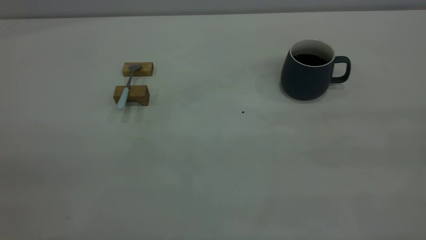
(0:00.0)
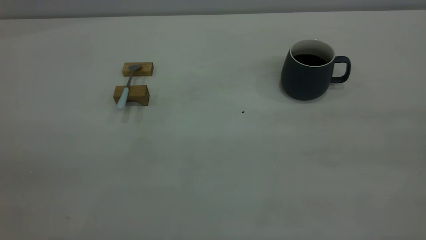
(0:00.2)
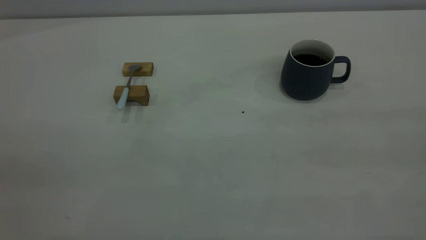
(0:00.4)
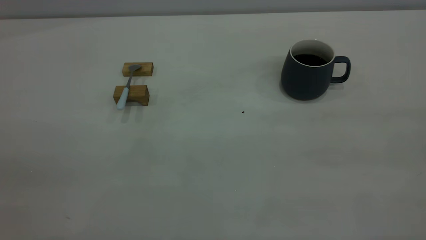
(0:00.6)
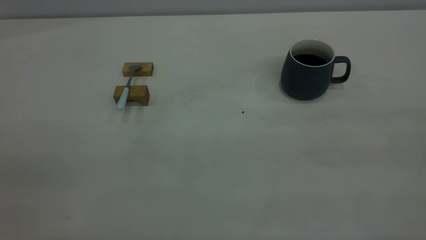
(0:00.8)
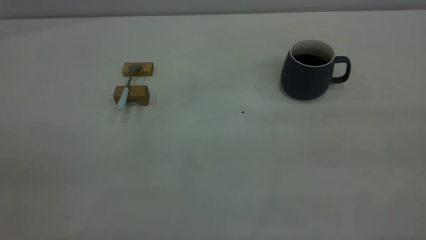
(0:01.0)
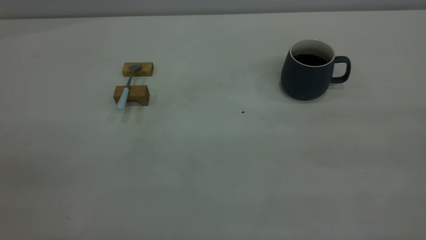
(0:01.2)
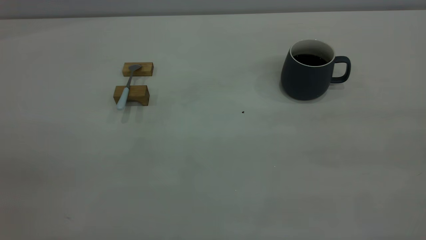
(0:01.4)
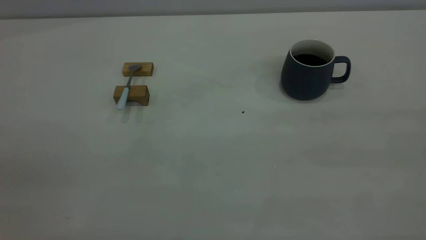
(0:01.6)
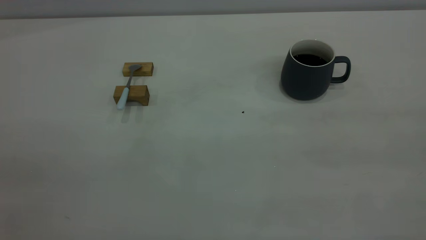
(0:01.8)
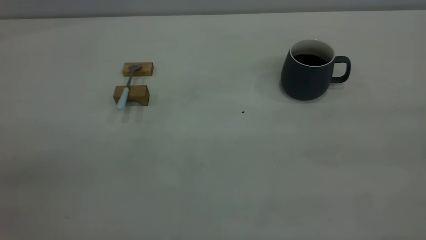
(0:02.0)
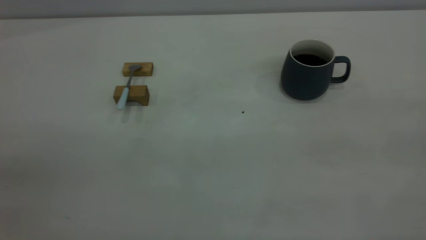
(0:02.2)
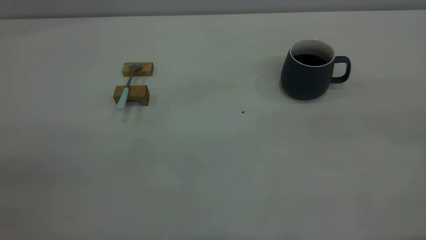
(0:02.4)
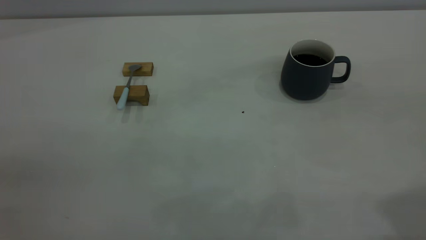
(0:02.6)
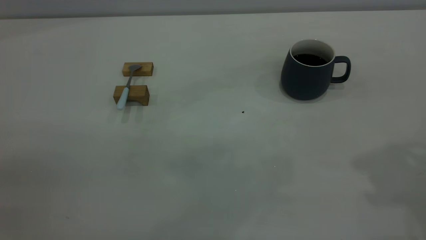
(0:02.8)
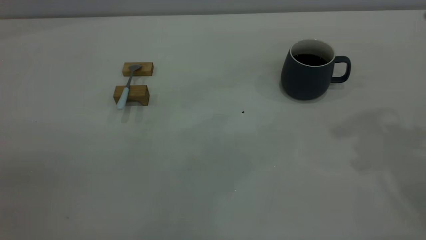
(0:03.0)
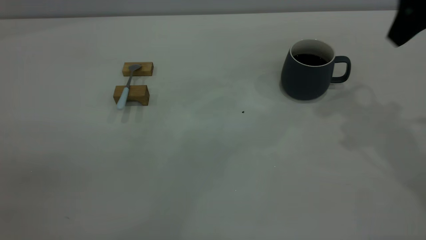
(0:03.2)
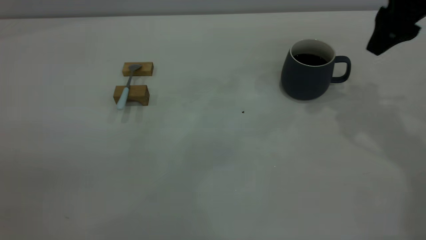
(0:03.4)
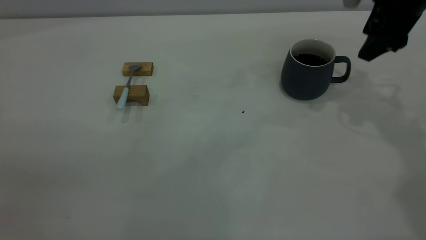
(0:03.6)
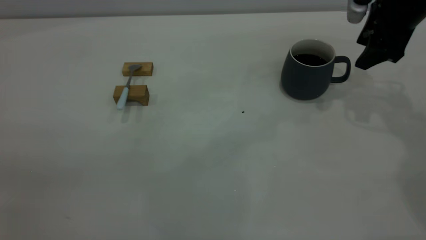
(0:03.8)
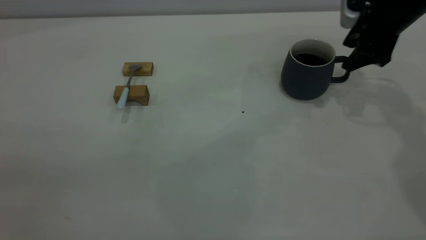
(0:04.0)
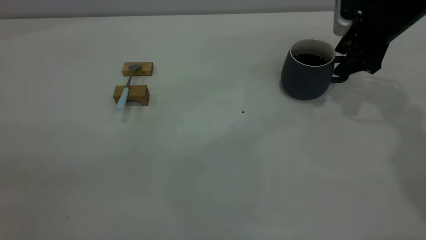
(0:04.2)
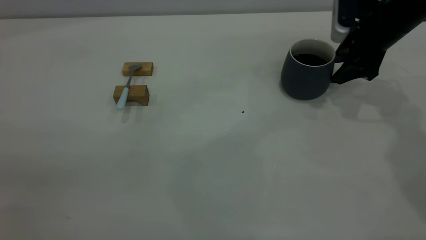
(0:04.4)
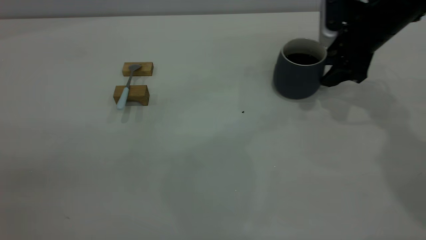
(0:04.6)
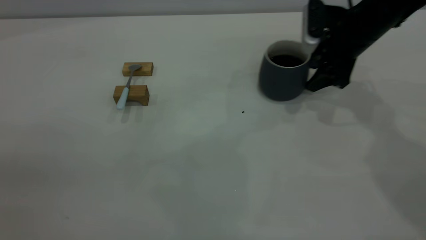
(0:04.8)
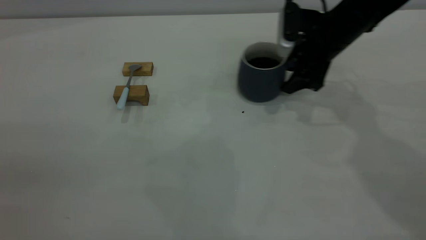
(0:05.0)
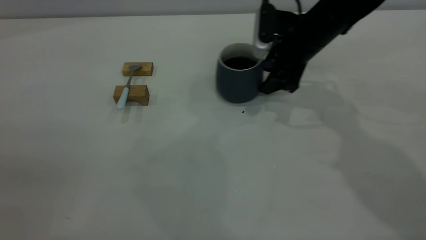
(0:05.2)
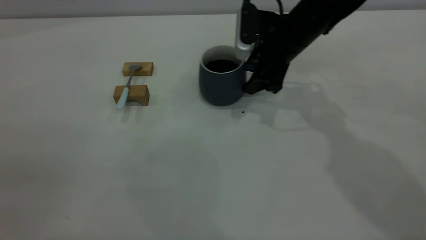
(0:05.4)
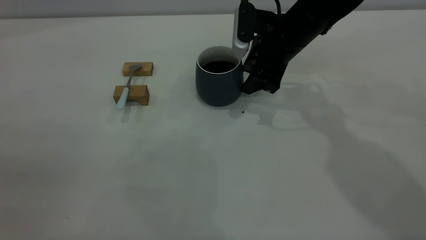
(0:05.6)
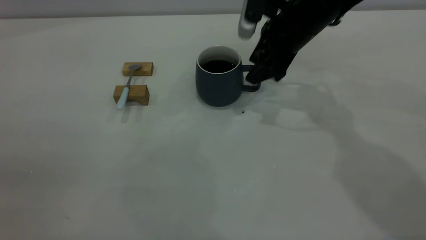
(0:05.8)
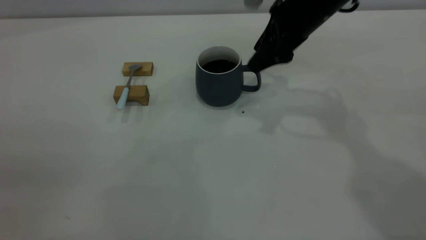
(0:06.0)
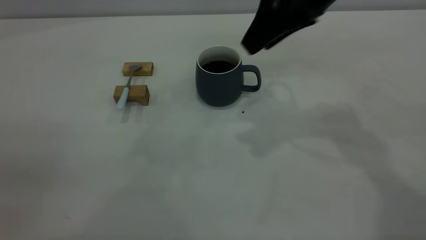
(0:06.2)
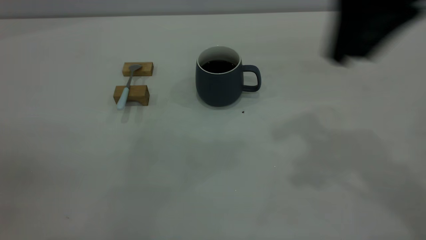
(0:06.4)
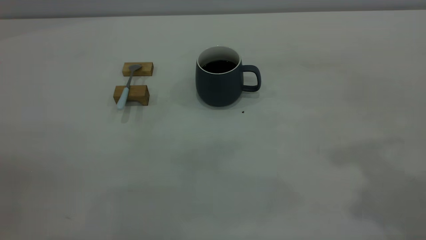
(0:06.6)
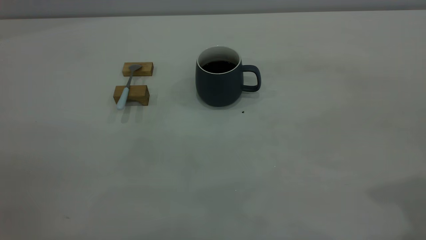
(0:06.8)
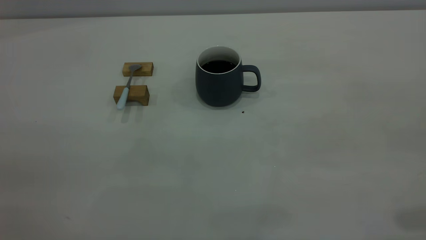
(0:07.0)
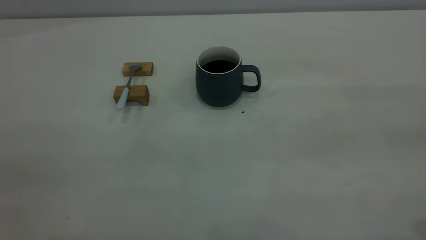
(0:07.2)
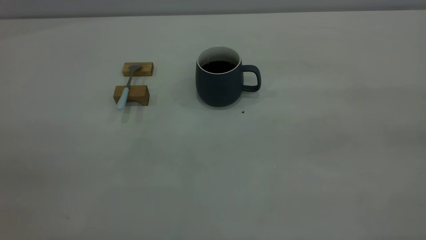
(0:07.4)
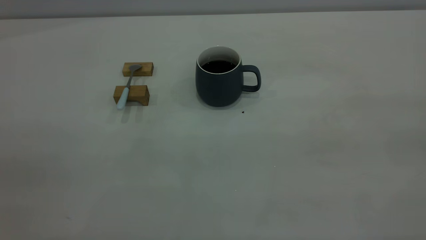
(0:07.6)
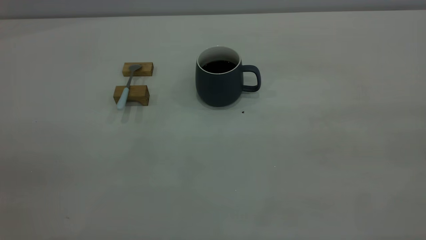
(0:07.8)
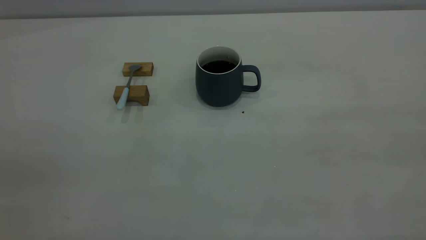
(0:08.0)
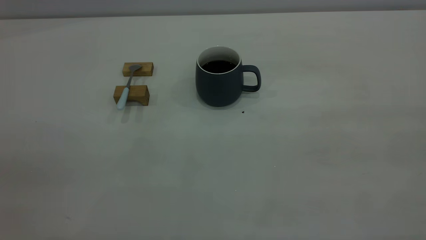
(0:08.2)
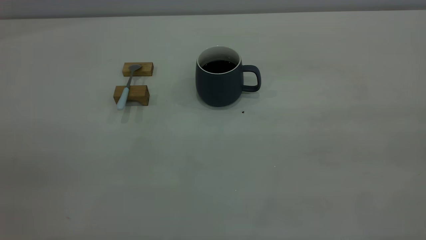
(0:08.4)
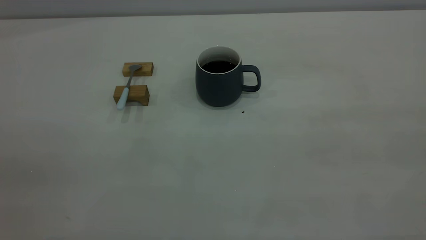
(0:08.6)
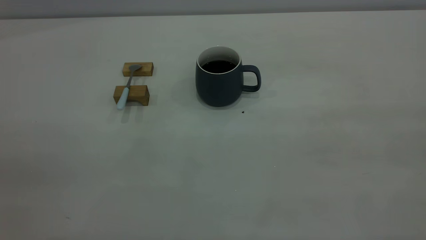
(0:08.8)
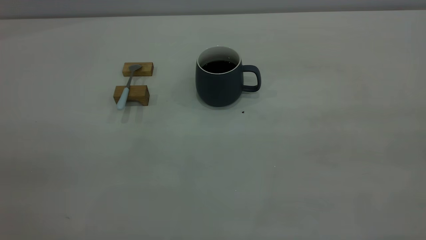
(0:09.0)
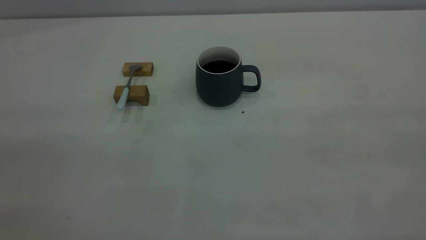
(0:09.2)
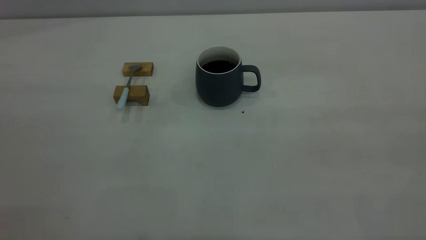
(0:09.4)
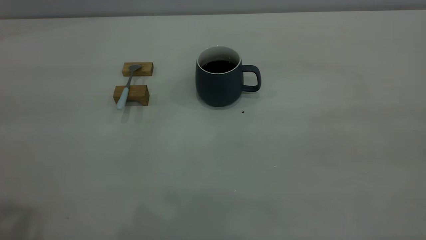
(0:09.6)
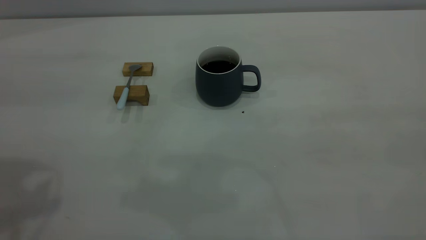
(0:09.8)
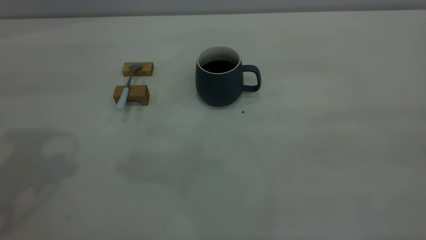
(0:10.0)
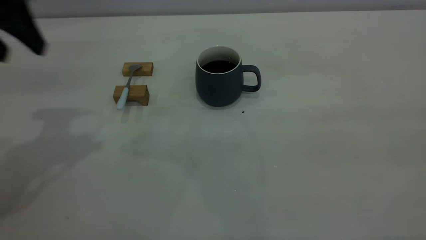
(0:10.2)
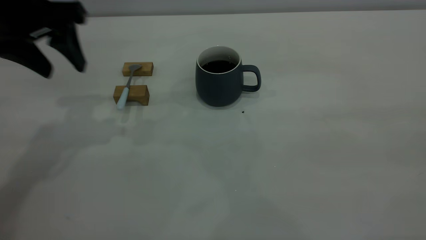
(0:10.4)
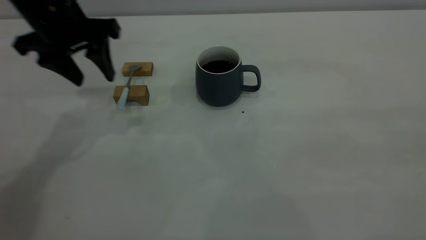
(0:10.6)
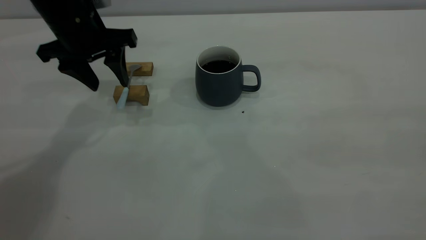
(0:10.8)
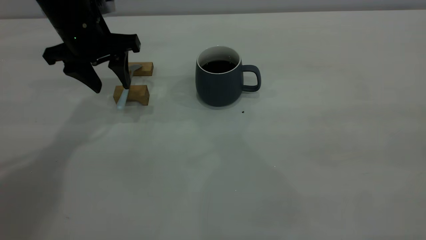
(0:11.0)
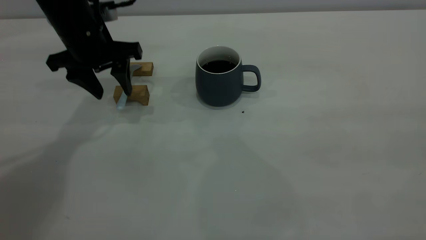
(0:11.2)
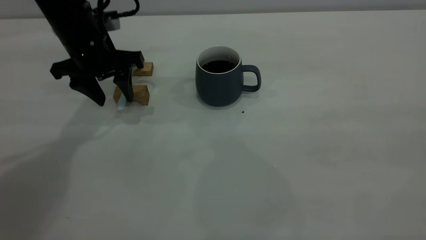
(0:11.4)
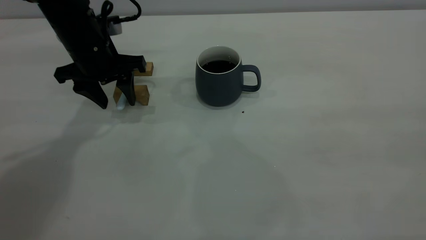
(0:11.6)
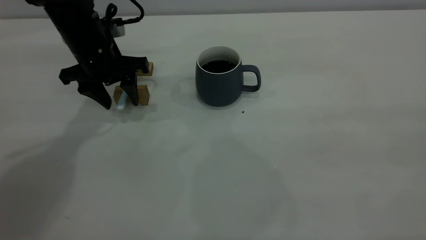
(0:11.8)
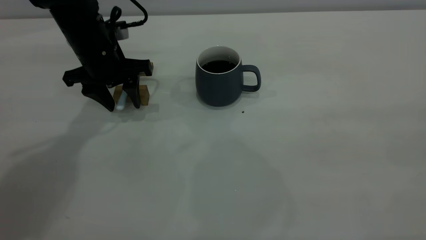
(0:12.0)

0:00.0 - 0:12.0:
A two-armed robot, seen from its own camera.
Step, 0:00.0 - 0:06.2: Move the cup with coffee to the center of view.
0:00.0 - 0:01.6: The two grippers keep their place.
0:03.0 - 0:04.4: The right gripper shifts about 25 cm downward and forward.
0:04.4 - 0:06.0: The right gripper heads to the left and upward, covering approximately 15 cm.
0:06.0 - 0:07.6: The right gripper shifts about 40 cm backward, upward and to the right.
0:09.0 - 0:10.4: The left gripper shifts approximately 35 cm forward, and opens.
0:10.4 - 0:12.0: The left gripper moves downward and forward, about 15 cm.

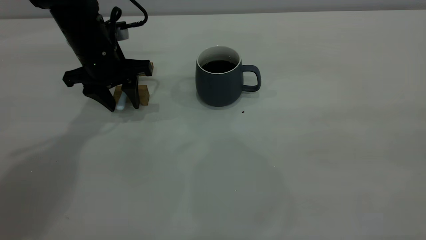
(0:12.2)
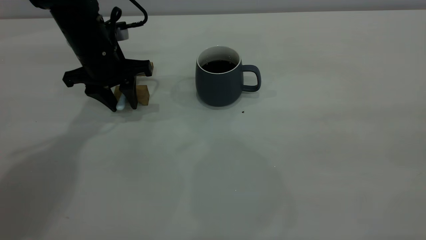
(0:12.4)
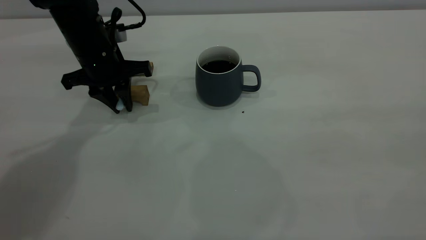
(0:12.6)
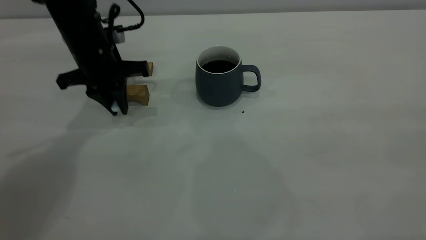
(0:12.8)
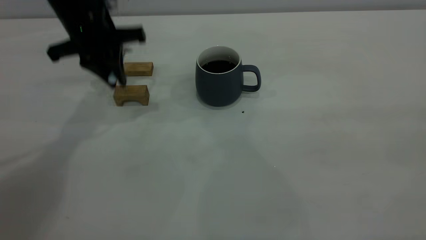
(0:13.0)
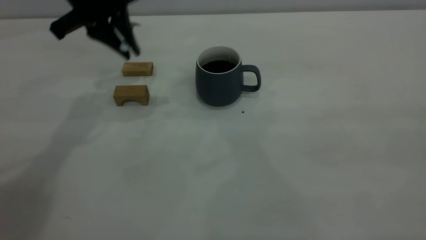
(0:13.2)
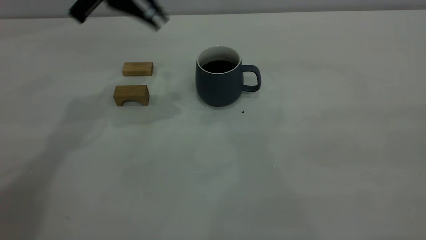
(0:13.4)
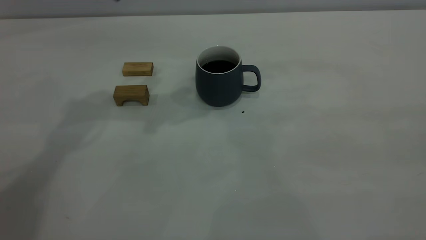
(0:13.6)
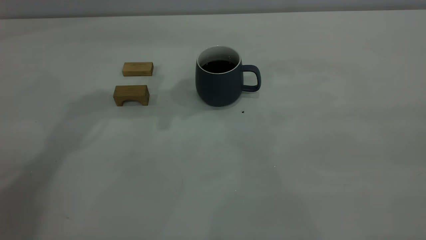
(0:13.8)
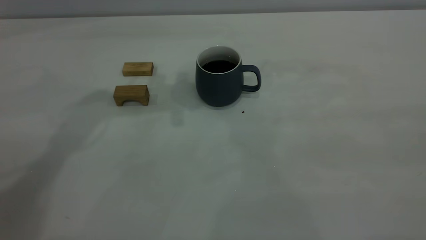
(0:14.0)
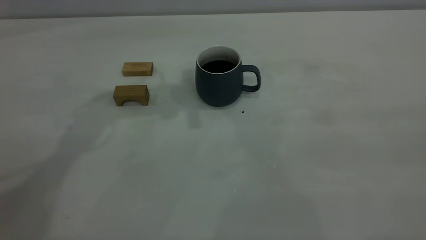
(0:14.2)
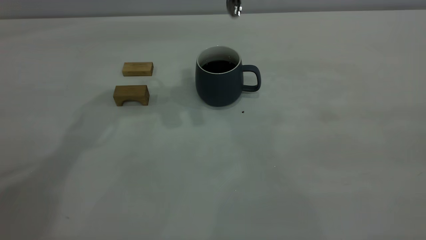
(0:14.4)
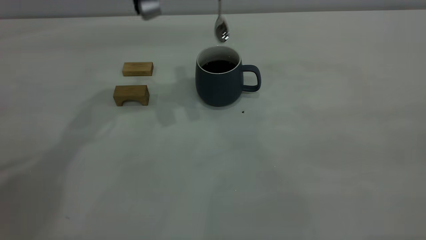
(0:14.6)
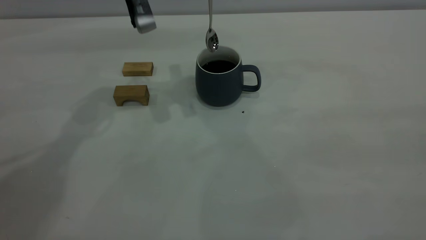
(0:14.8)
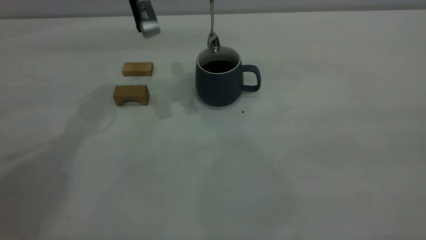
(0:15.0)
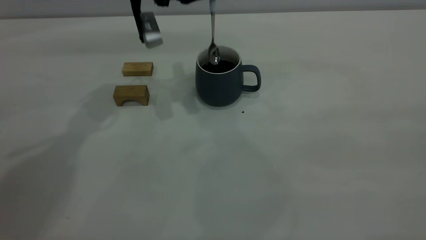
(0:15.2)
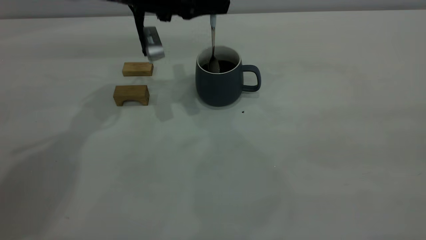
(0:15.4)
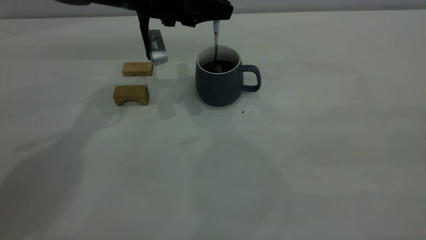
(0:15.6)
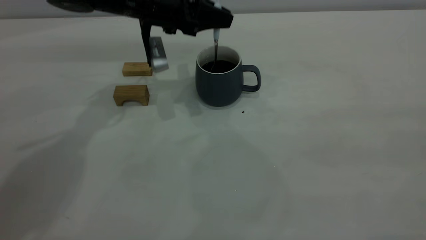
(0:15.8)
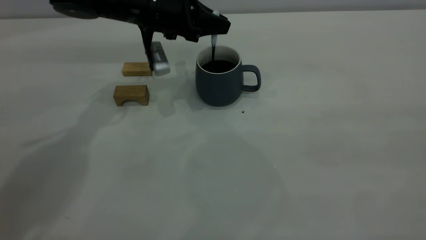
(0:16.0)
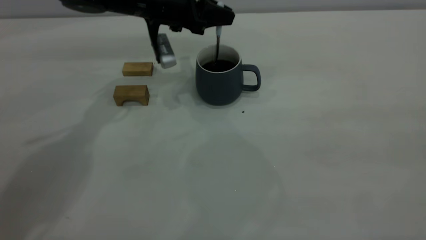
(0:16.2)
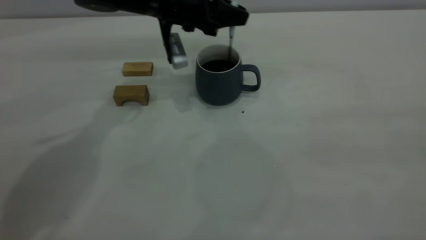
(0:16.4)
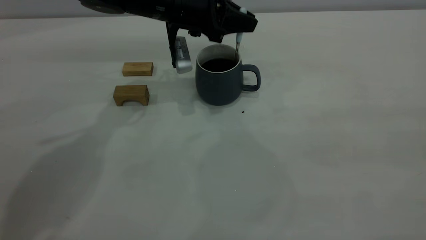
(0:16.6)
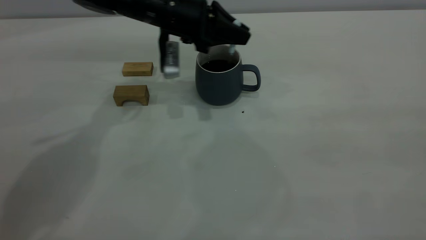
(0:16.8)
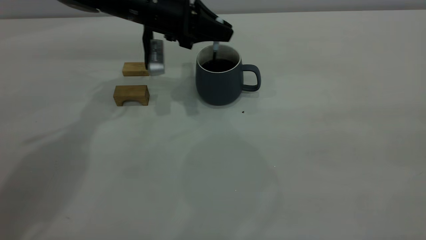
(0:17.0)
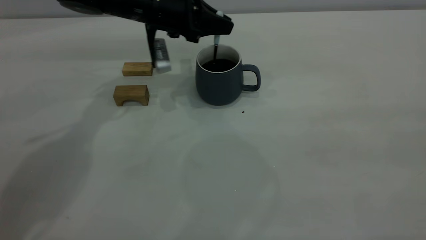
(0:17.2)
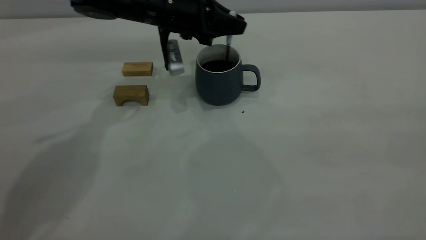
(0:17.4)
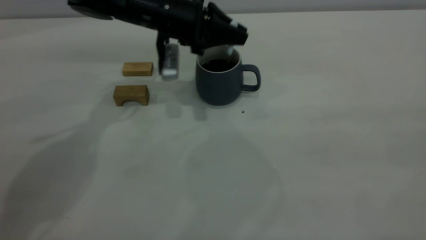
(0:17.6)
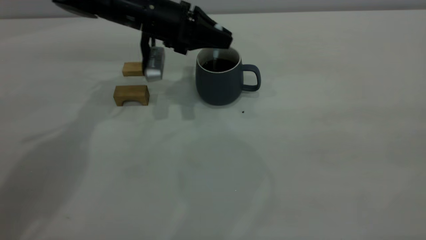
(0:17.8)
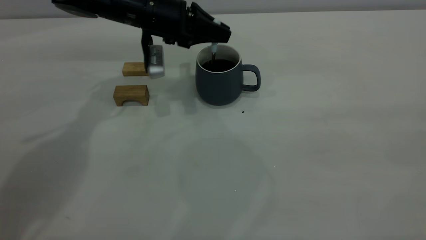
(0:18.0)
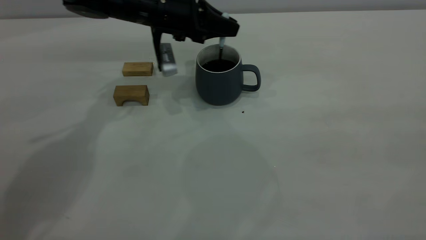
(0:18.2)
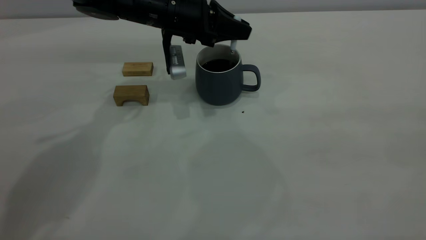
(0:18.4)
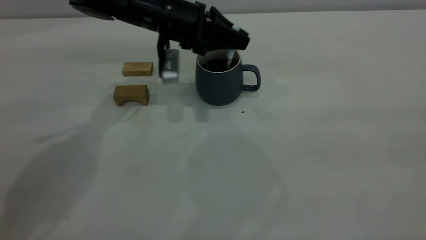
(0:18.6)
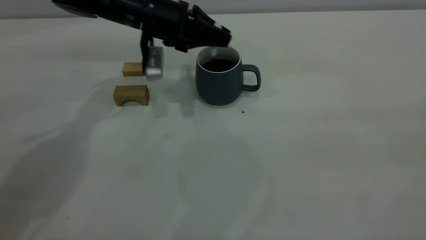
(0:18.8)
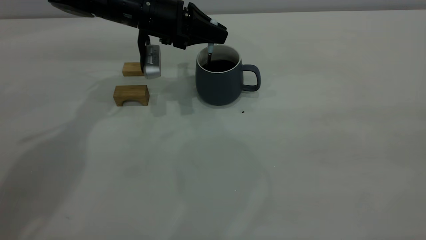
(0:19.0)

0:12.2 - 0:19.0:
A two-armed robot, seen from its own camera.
0:12.2 - 0:13.6: The left gripper shifts approximately 20 cm upward, and closes its fingers.
0:13.6 - 0:15.0: The left gripper is displaced downward by some 10 cm.
0:15.0 - 0:16.2: The left gripper travels downward by roughly 5 cm.
0:16.2 - 0:19.0: The grippers move only a little.
